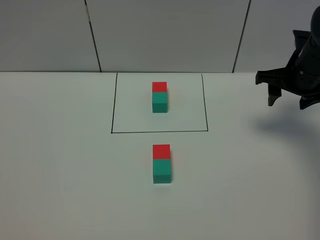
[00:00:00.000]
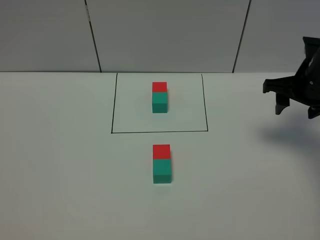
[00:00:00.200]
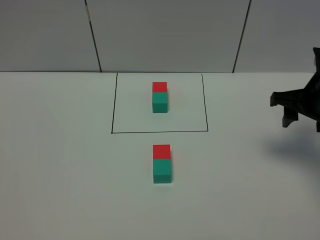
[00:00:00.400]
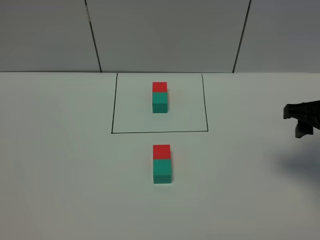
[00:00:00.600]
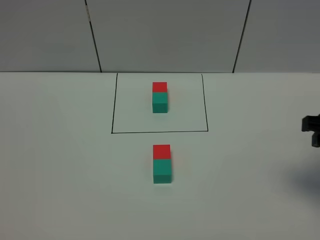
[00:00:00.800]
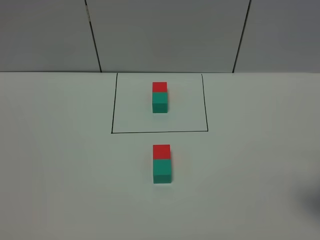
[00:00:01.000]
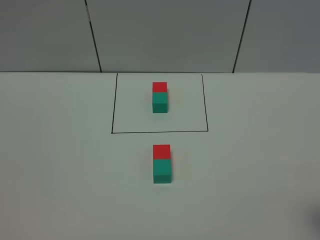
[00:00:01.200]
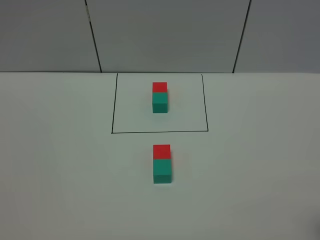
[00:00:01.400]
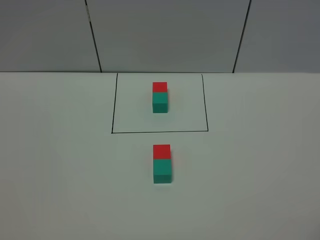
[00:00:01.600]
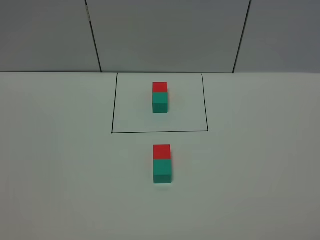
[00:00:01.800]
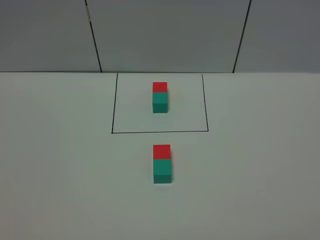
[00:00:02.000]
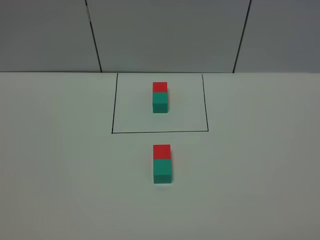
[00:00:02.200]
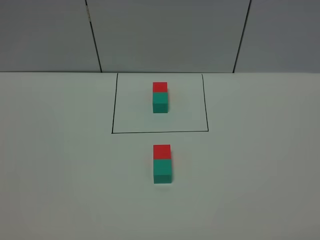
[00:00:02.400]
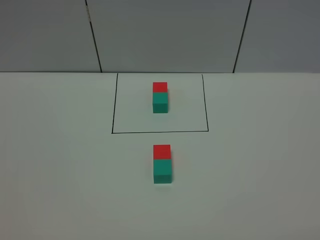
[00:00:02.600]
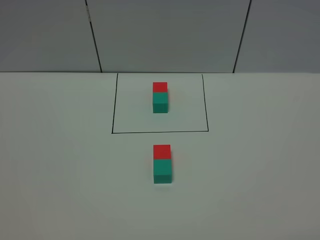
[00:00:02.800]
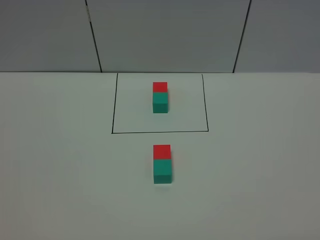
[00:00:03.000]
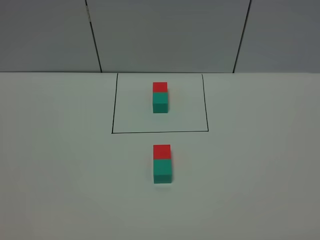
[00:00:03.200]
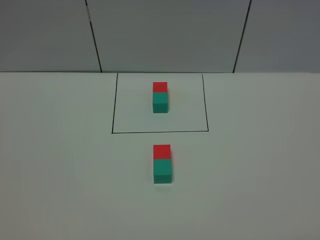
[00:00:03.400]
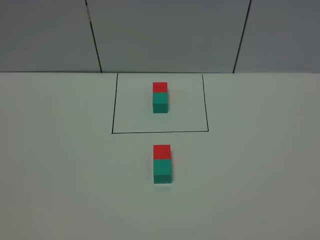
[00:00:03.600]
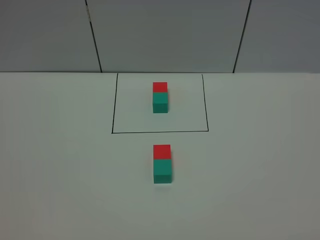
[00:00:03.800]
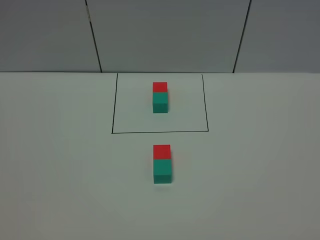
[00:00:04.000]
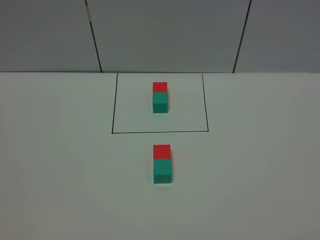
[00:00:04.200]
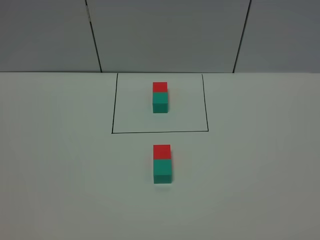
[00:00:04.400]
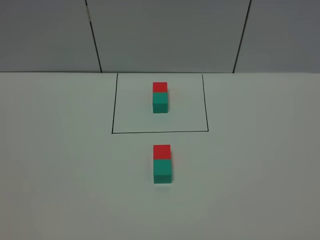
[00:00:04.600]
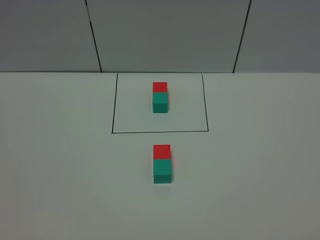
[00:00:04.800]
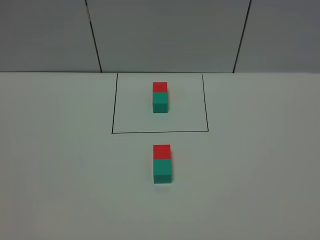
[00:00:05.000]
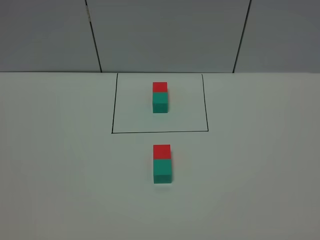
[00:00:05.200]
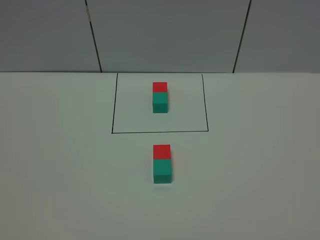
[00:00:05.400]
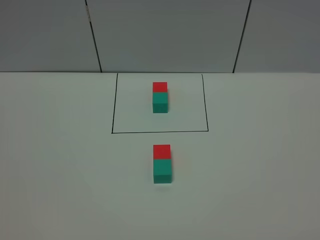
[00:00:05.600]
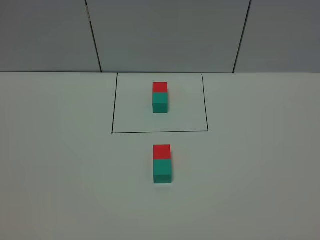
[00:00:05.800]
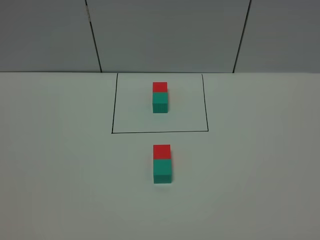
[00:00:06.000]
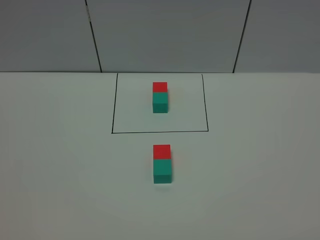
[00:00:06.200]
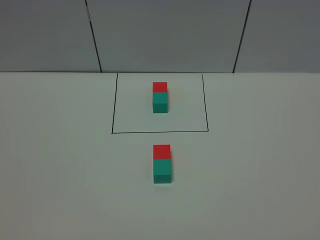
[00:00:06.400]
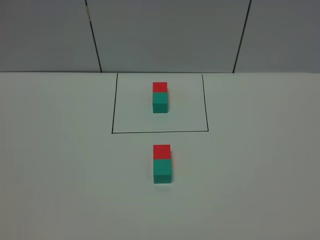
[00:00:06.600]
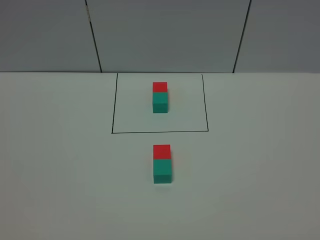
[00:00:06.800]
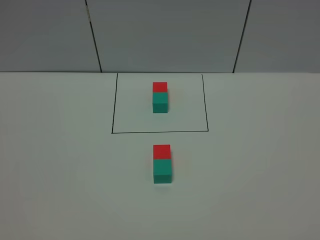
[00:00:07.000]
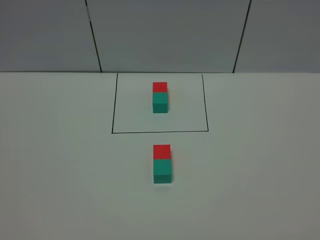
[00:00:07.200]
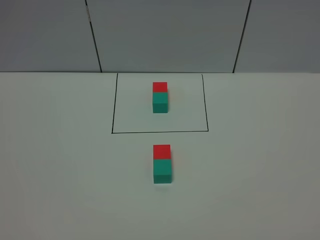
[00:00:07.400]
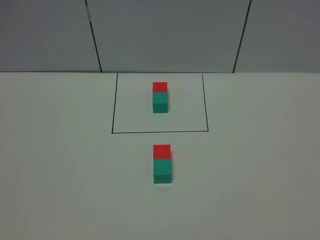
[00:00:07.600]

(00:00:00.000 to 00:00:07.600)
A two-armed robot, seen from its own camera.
Task of the whole recording: According to the building block template in front, assemble the scattered blocks together.
00:00:00.000 - 00:00:01.600: The right gripper shifts approximately 30 cm backward.
00:00:04.600 - 00:00:07.600: Neither gripper changes place.
